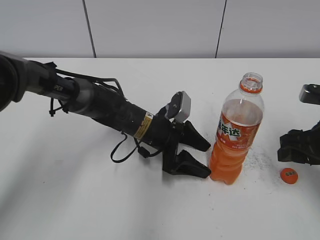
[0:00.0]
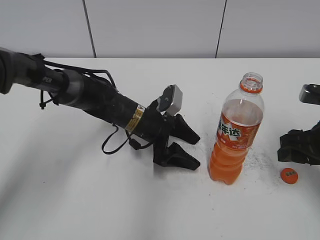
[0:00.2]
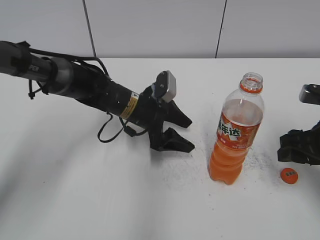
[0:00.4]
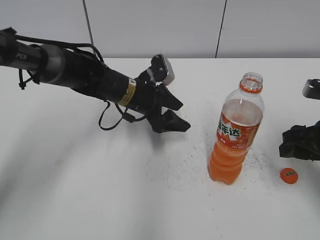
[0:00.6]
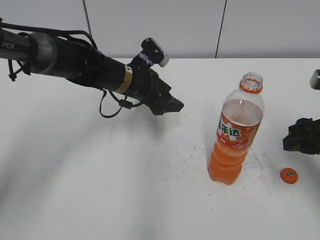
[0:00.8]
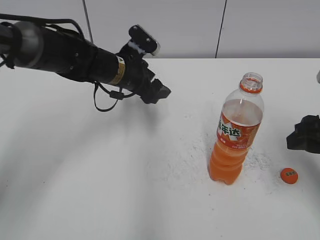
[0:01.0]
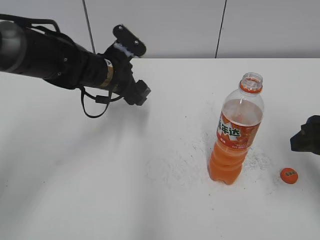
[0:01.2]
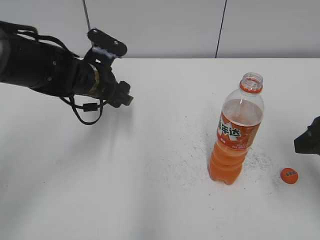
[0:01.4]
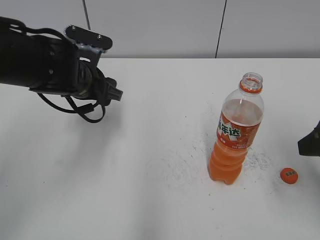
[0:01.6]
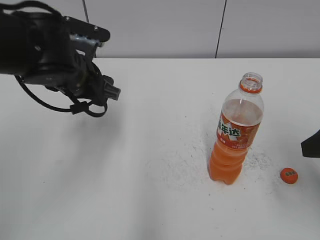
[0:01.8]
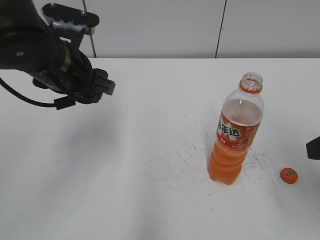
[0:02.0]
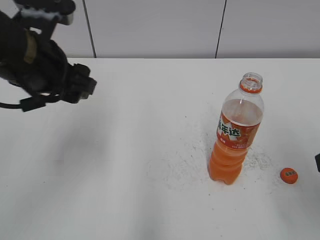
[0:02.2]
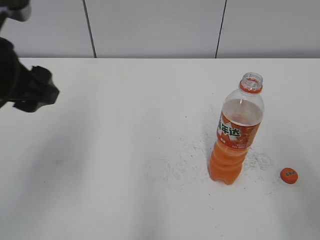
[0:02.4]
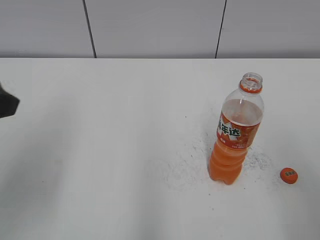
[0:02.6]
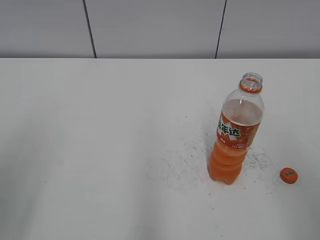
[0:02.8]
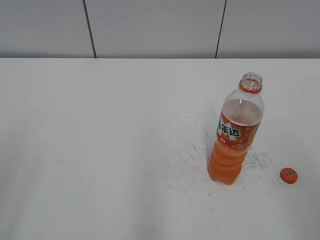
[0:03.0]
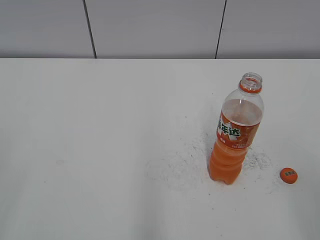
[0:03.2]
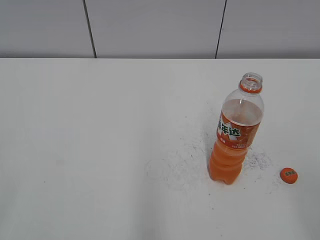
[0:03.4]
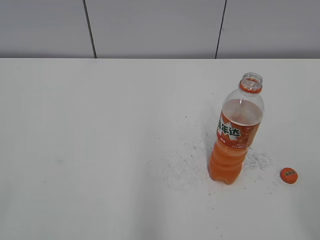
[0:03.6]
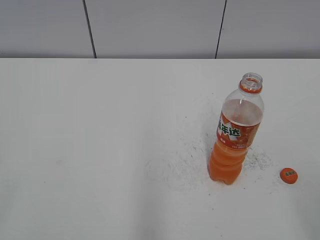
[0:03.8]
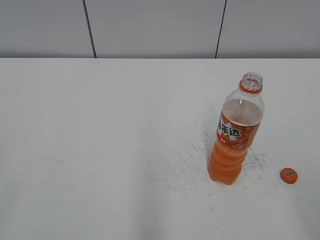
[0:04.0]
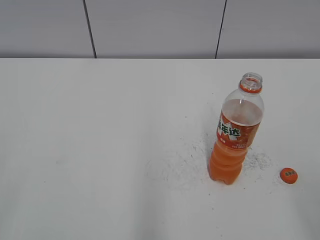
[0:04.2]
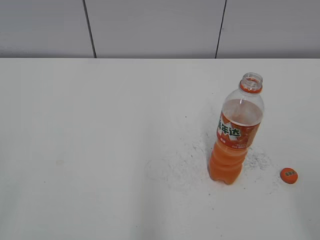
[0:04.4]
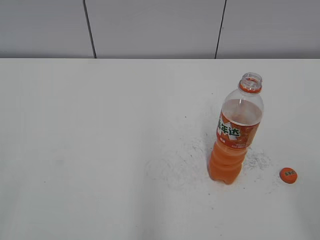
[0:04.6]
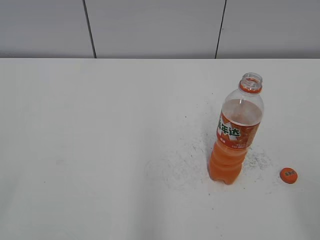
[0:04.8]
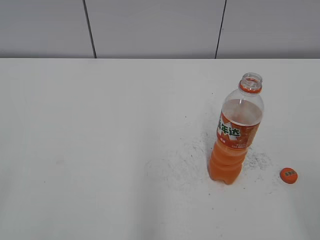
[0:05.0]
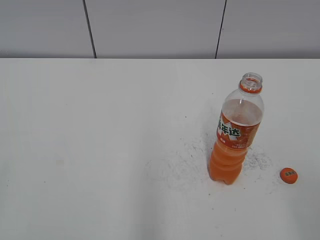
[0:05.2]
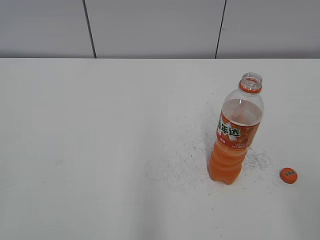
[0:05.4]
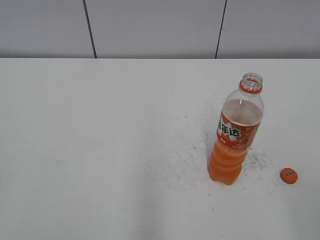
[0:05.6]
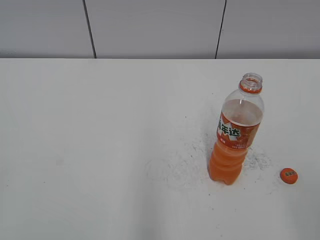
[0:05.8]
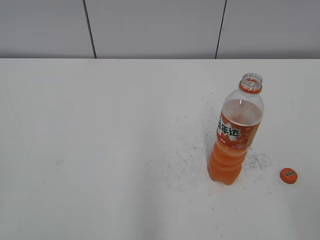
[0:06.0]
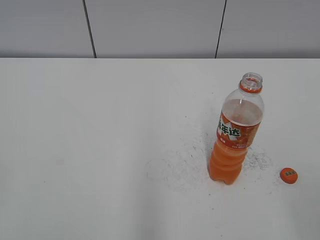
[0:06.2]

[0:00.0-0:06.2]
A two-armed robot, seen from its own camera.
0.0 to 1.6 s: The left gripper heads to the left and upward, covering roughly 15 cm, and closes up. Meanwhile the right gripper heads upward and backward, covering some 10 cm.
1.6 to 3.2 s: The right gripper moves backward, about 15 cm, while the left gripper shifts about 40 cm backward, to the left and upward.

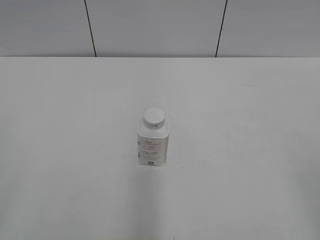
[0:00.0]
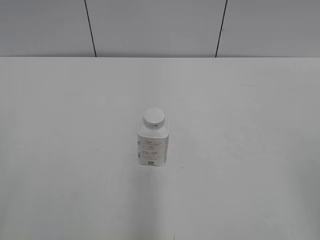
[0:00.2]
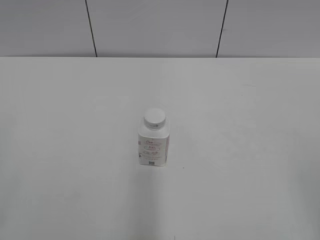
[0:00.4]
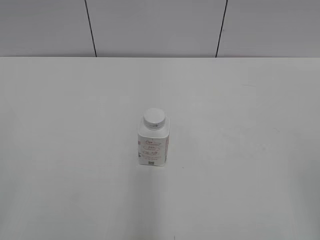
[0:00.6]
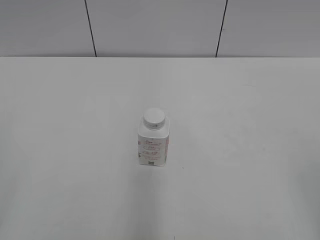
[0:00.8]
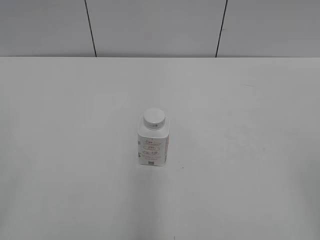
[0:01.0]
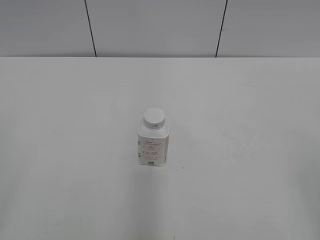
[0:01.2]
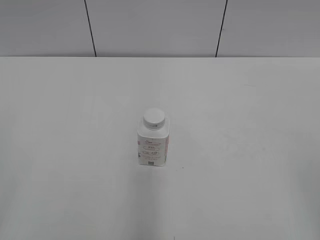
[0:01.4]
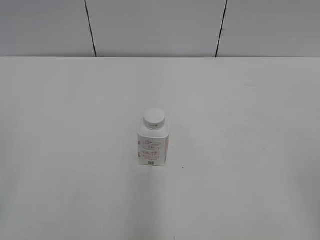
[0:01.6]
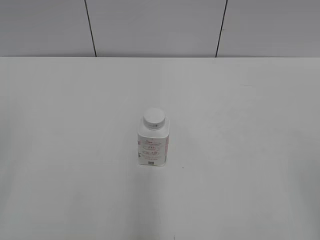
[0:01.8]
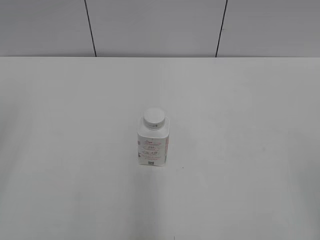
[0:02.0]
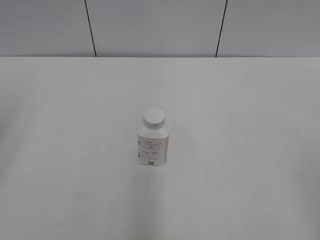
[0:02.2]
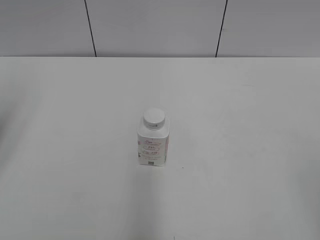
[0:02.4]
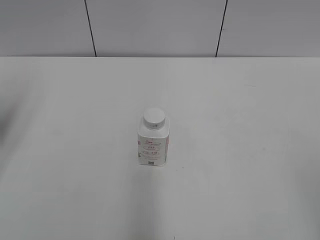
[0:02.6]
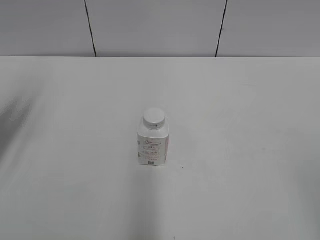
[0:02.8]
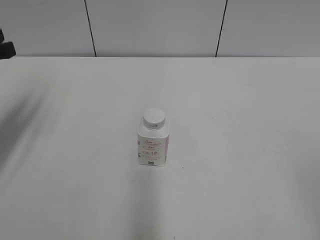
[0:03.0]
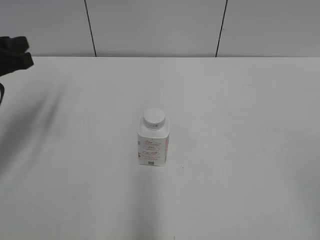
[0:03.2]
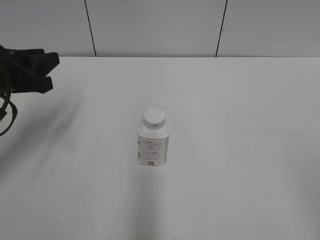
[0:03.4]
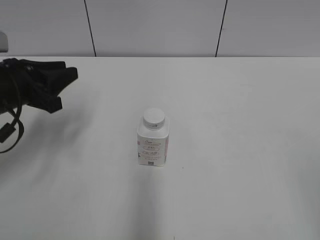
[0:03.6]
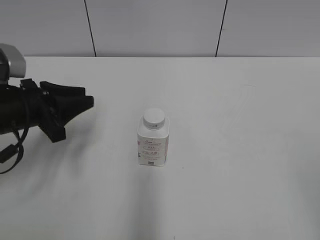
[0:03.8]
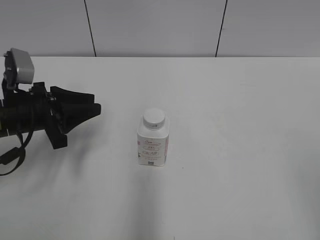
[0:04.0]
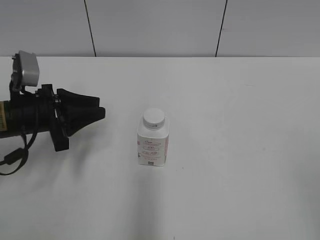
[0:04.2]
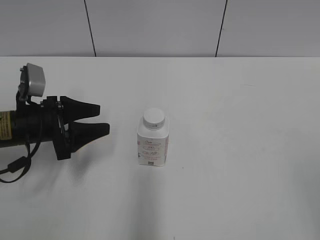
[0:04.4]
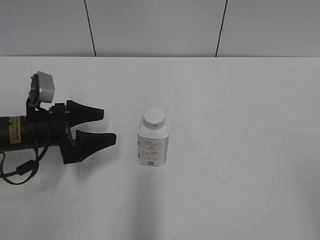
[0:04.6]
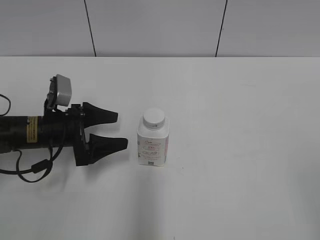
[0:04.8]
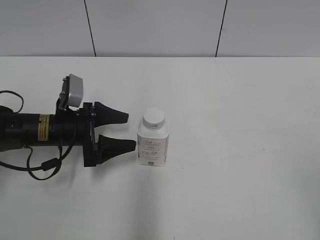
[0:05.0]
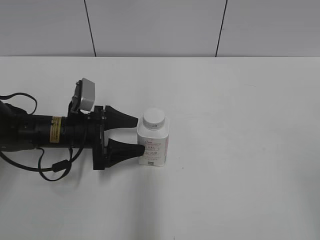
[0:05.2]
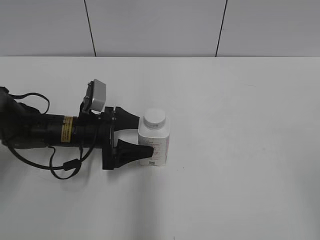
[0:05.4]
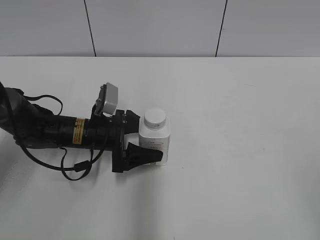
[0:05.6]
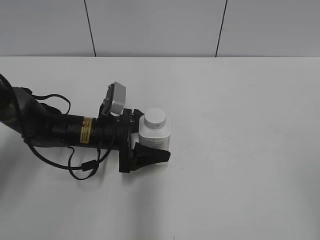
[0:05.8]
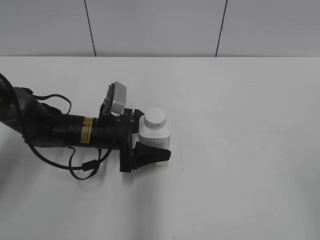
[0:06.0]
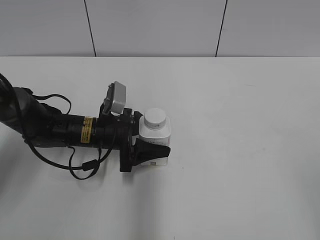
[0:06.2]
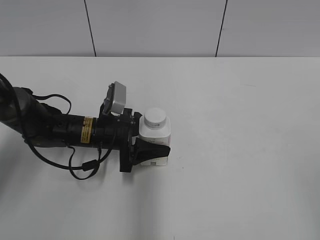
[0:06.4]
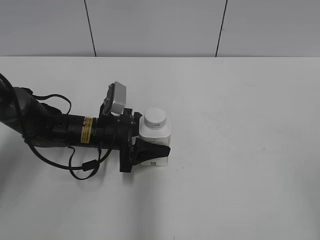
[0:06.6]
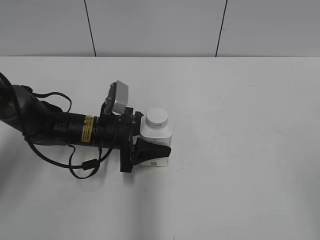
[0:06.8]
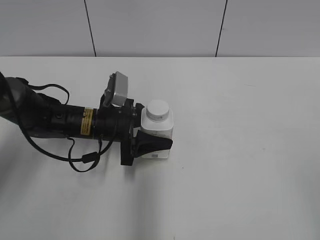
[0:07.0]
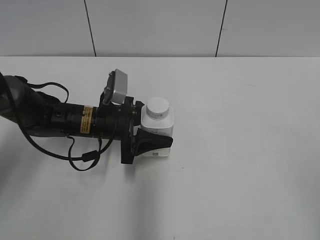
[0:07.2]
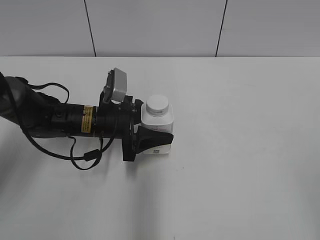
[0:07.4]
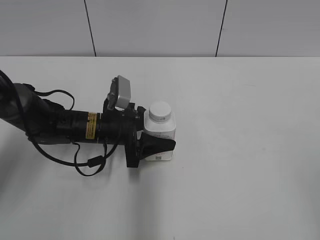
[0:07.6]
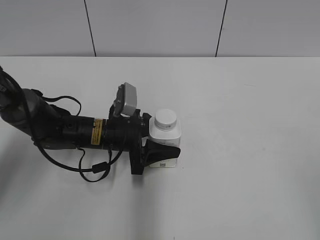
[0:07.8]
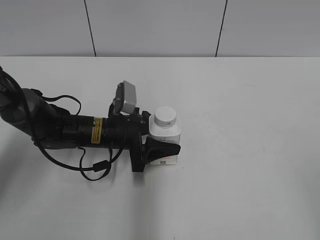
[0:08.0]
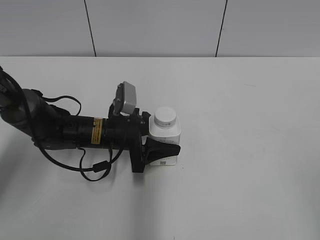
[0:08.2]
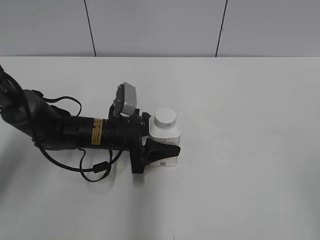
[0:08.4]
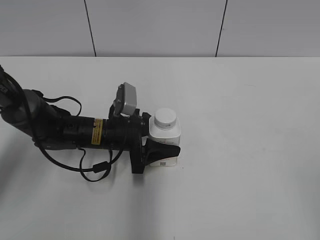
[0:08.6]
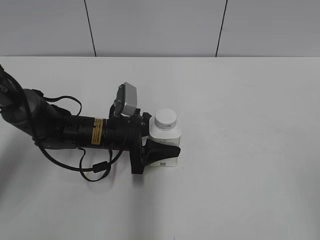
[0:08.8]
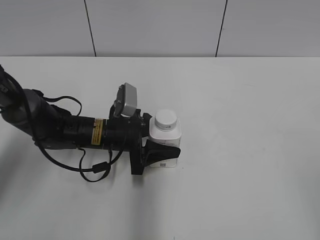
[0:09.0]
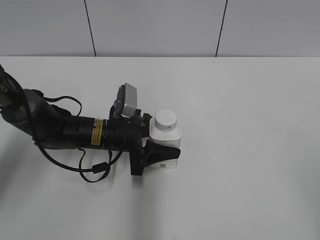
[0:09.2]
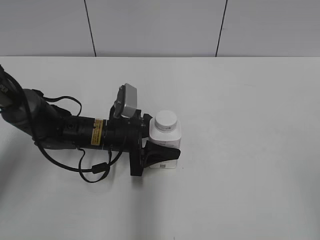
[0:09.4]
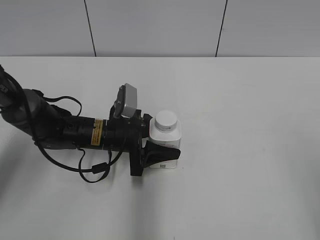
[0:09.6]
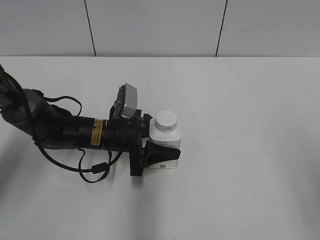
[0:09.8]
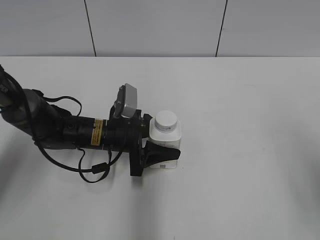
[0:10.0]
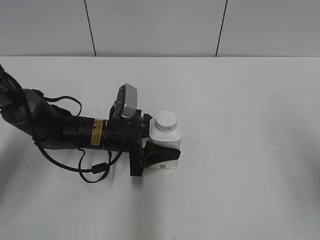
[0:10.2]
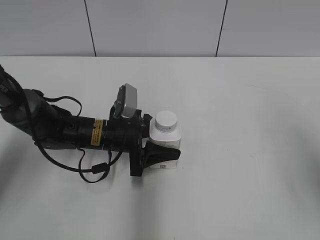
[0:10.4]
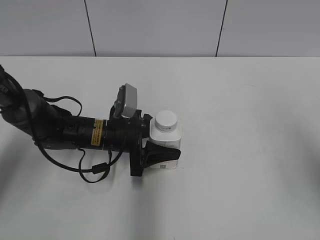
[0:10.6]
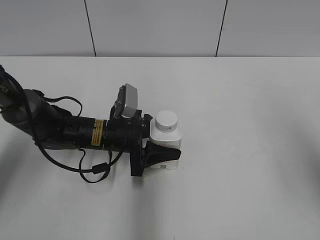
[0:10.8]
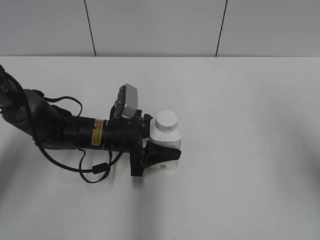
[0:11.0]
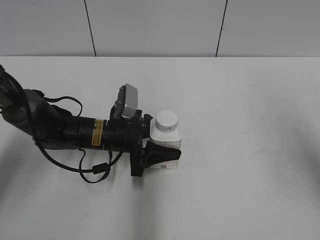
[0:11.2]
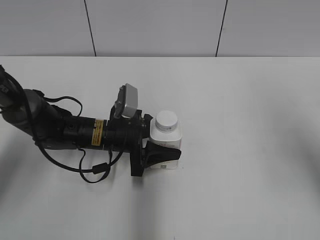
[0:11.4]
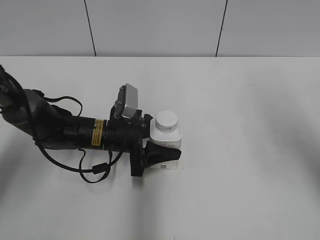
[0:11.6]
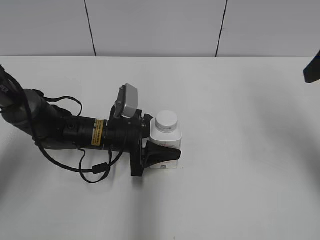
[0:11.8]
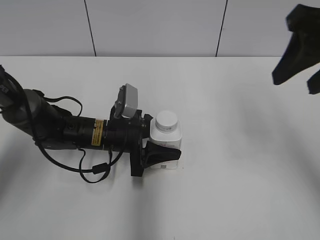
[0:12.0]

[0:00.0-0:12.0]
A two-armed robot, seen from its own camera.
Step, 0.0 to 6.2 s: Grab the Yili Changqing with the left hand.
Step, 6.4 to 9.2 s: Move the Yili Changqing from left to right.
1.6 to 3.0 s: The left gripper moves forward, some 30 cm.
3.0 to 4.4 s: The left gripper shifts approximately 15 cm downward and to the right, and opens up.
4.4 to 6.0 s: The left gripper goes roughly 10 cm to the right and downward, and opens up.
6.0 to 7.6 s: The left gripper closes its fingers.
7.6 to 9.0 s: The grippers make only small movements.
9.0 to 10.4 s: The right gripper goes about 15 cm forward.
10.4 to 12.0 s: The right gripper moves forward and to the left, some 15 cm, and closes up.

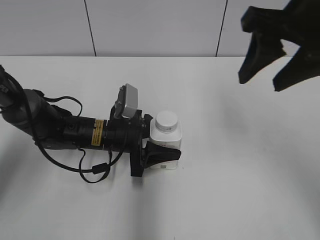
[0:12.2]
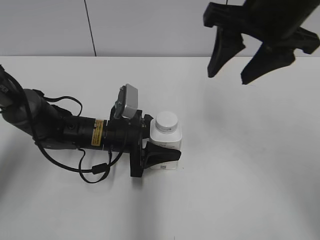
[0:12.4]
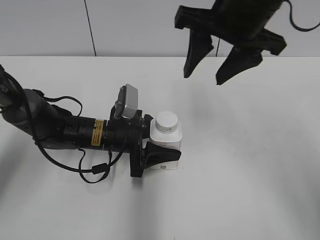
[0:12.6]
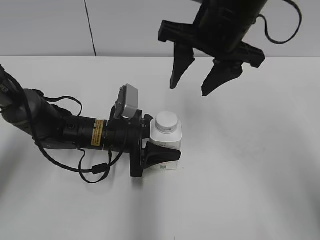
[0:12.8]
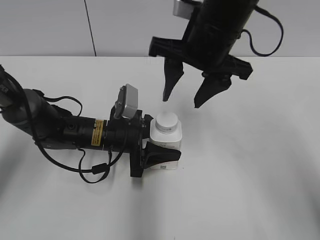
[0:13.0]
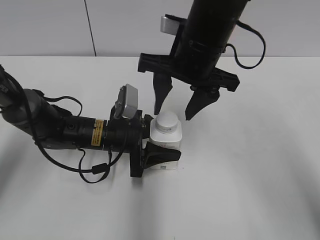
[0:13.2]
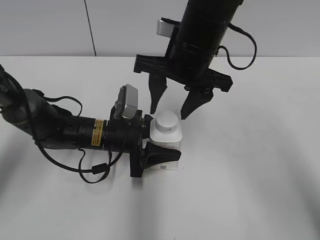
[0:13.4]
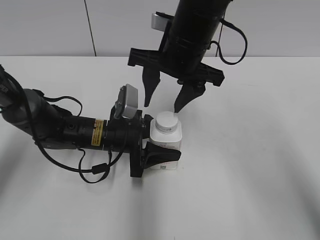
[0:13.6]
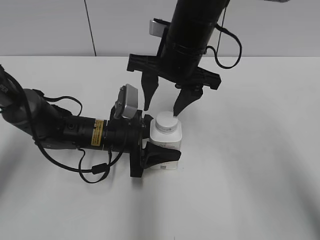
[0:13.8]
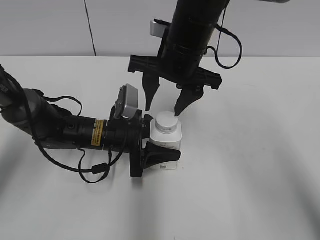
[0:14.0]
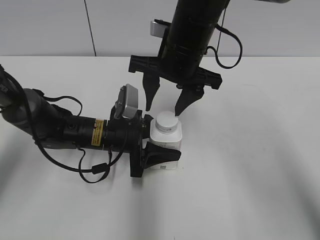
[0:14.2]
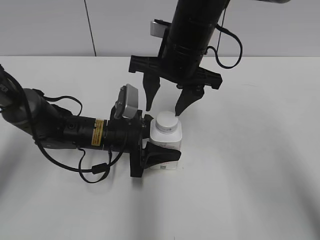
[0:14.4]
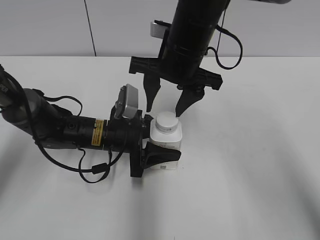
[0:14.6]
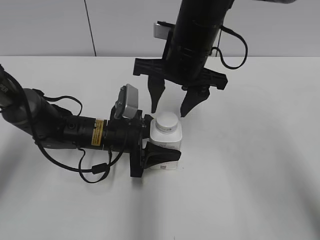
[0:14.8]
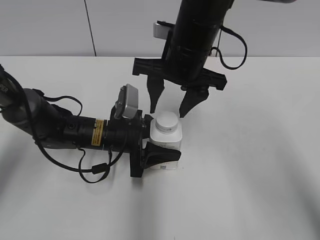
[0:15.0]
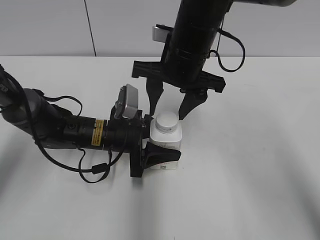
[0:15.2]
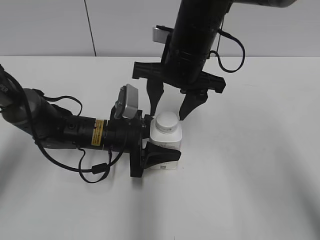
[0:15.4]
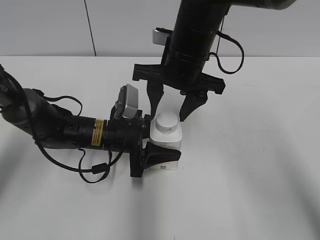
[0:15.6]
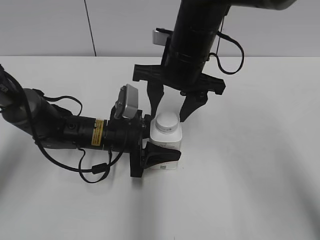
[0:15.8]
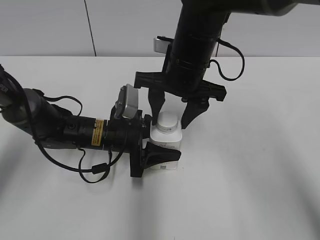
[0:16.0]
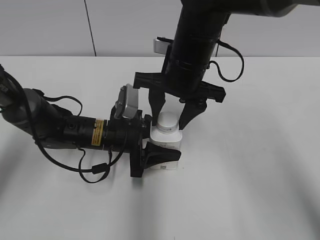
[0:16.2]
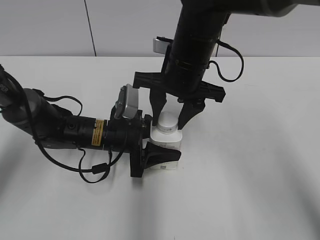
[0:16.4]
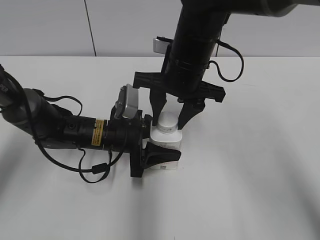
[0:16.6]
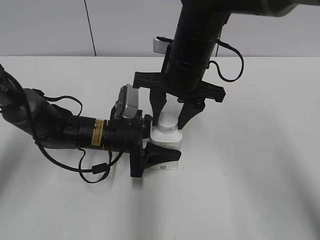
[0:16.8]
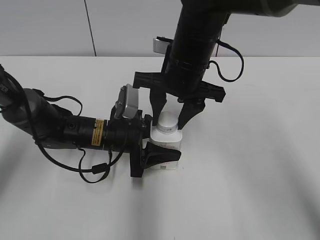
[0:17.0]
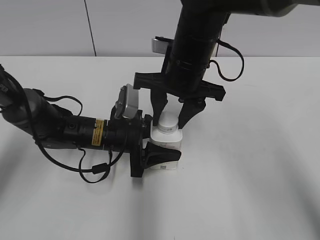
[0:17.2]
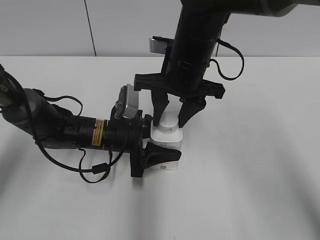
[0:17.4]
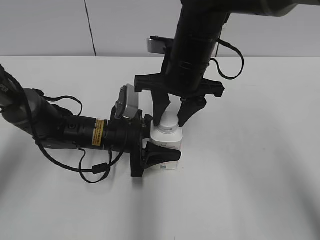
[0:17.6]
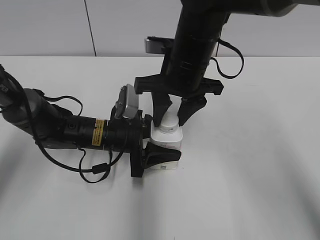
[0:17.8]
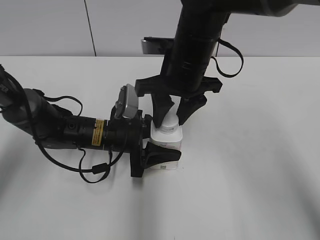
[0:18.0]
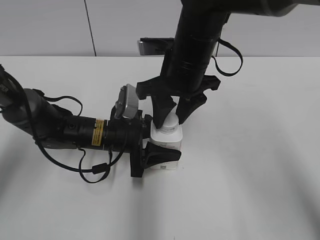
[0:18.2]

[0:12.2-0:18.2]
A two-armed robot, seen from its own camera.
12.2 to 13.8 s: The right gripper is displaced to the left, downward and forward by approximately 20 cm.
13.8 to 15.2 s: Both grippers stay put.
15.2 to 16.6 s: The right gripper closes.
